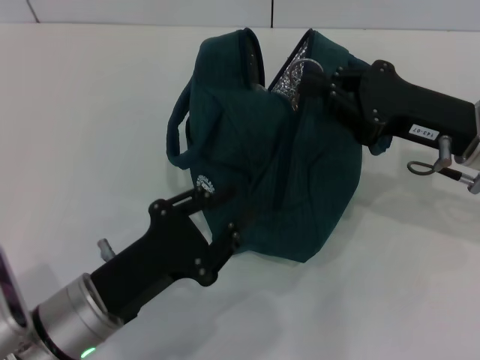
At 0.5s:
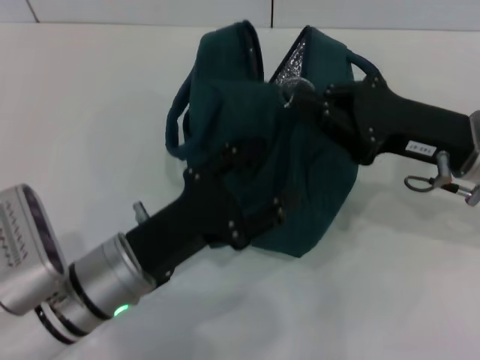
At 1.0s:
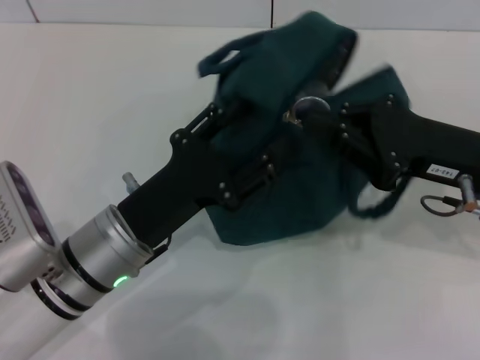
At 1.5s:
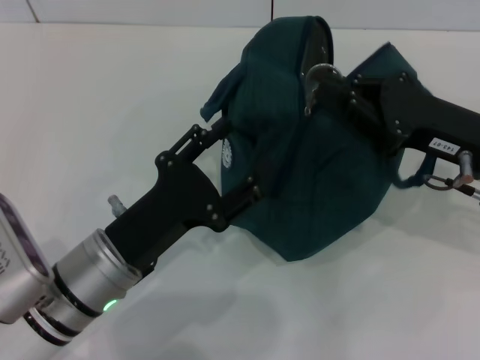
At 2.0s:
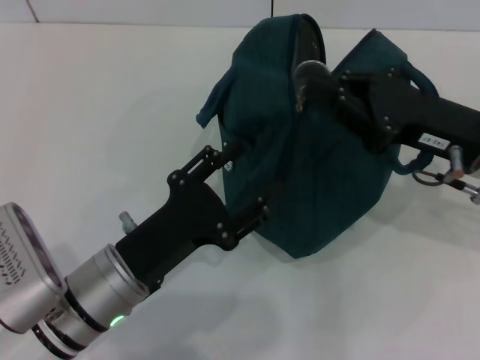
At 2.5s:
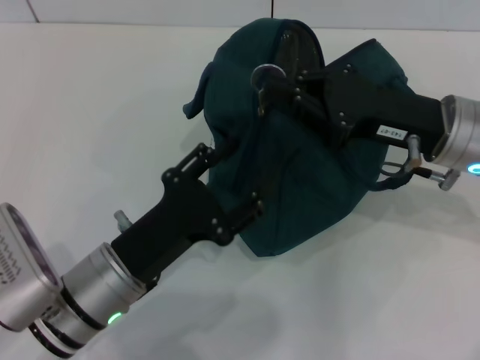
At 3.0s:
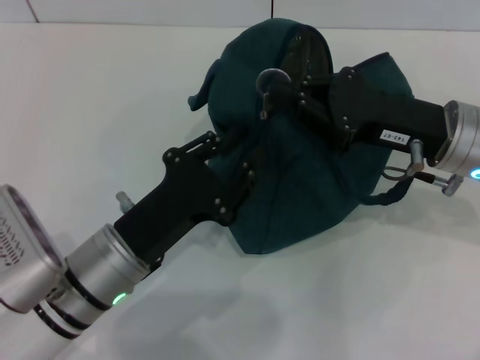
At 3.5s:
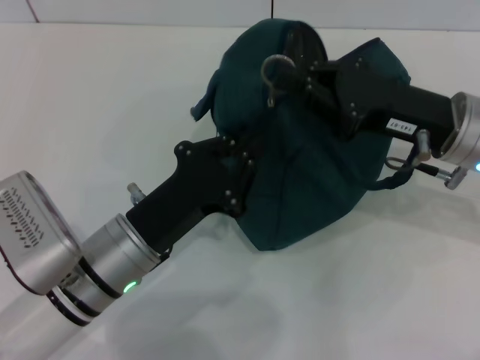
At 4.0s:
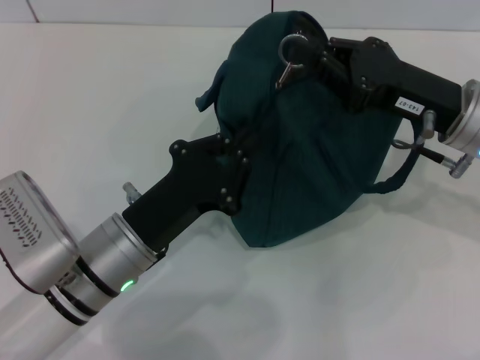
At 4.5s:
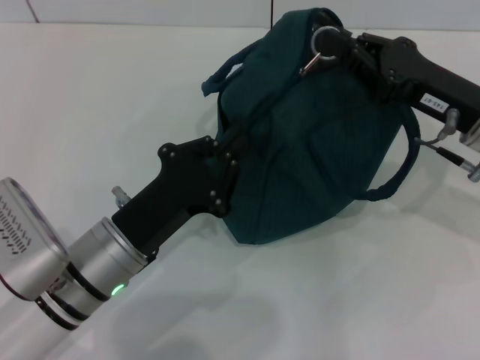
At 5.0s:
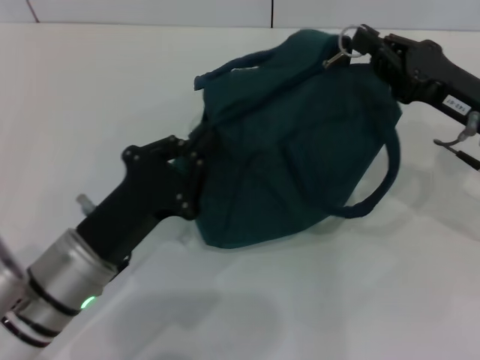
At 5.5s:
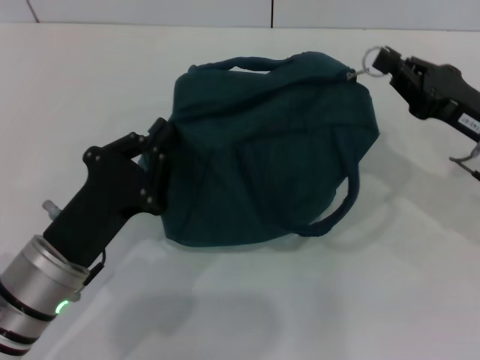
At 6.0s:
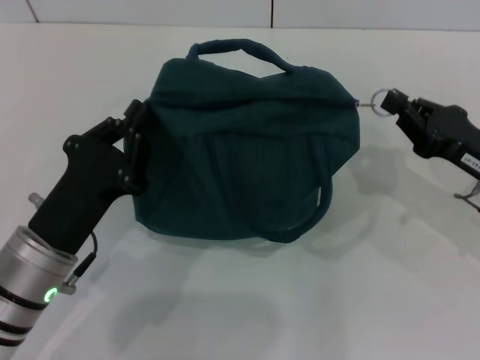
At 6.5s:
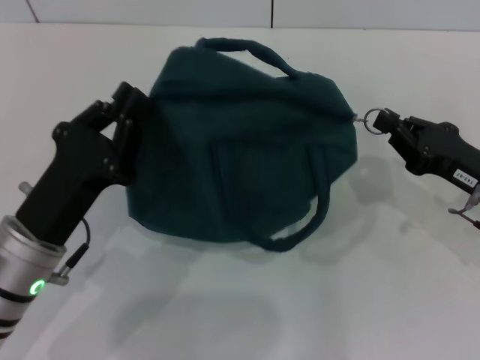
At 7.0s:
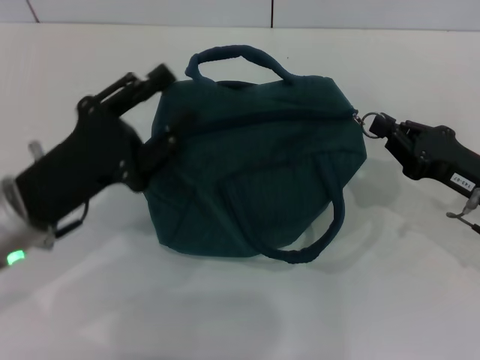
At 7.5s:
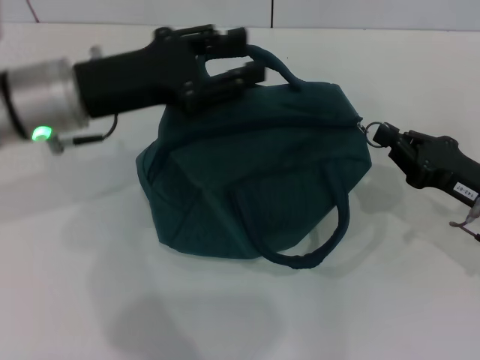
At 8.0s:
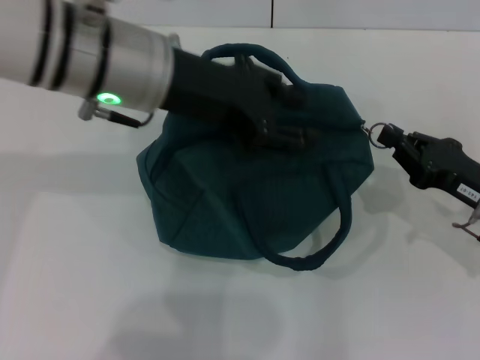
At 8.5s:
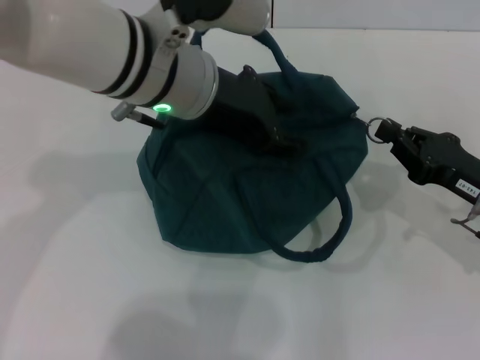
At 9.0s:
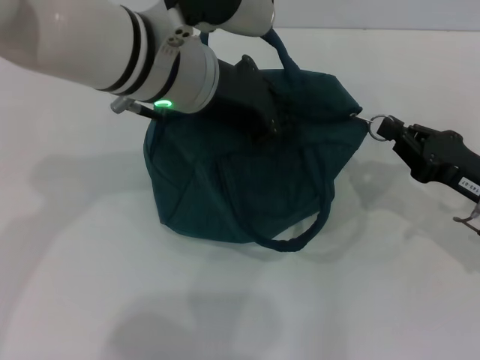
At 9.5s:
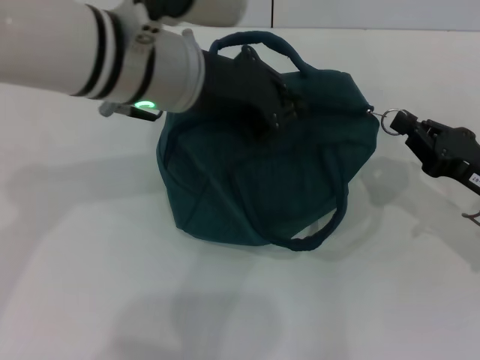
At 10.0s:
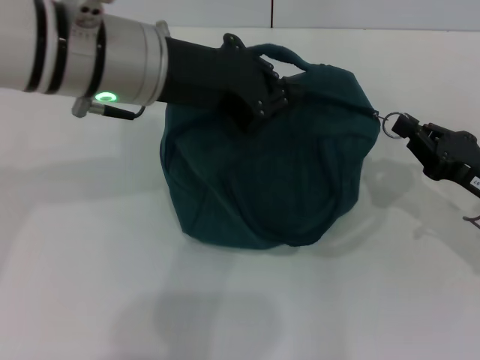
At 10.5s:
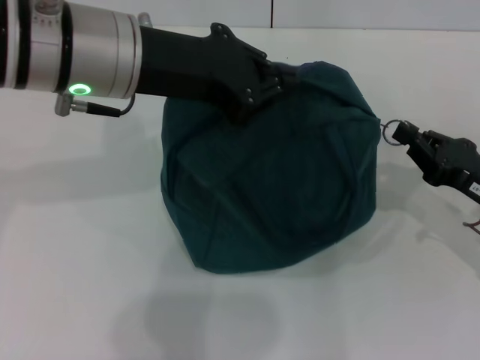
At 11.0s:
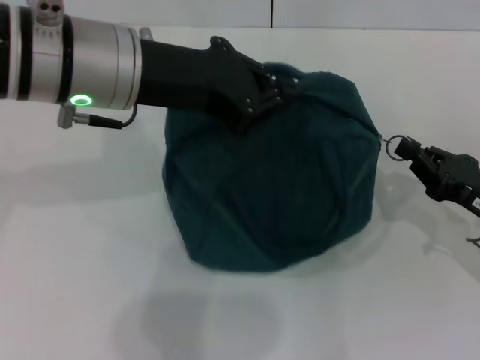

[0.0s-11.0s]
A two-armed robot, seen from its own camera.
0.0s to 2.0s: The left gripper opens up.
2.0s to 3.5s: The left gripper closes its fingers.
3.5s to 5.5s: The left gripper moves to the left, some 5 cm; the right gripper is displaced to the right by roughly 5 cm.
5.5s to 7.5s: The left gripper shifts some 20 cm upward and forward, and opens its fingers, while the right gripper moves approximately 5 cm.
7.5s to 9.0s: The left gripper moves to the right, approximately 10 cm.
9.0s to 11.0s: The left gripper shifts roughly 5 cm to the left.

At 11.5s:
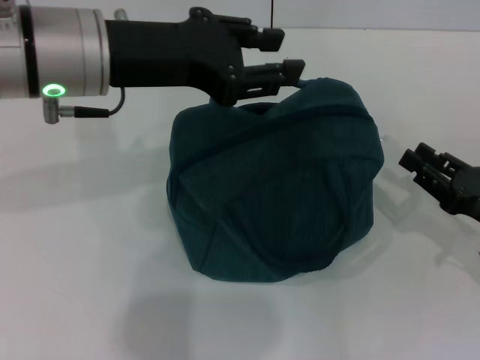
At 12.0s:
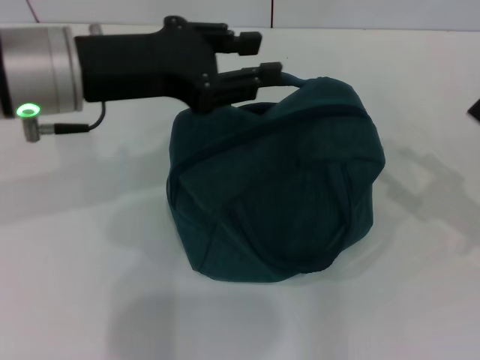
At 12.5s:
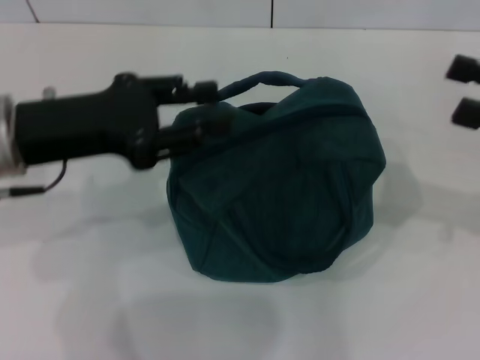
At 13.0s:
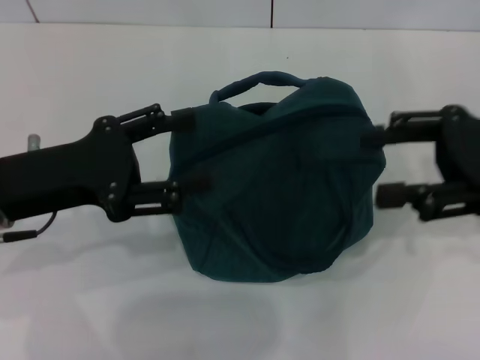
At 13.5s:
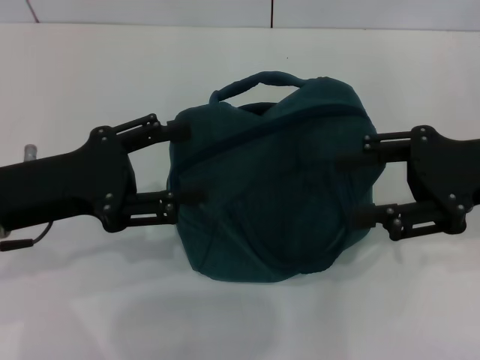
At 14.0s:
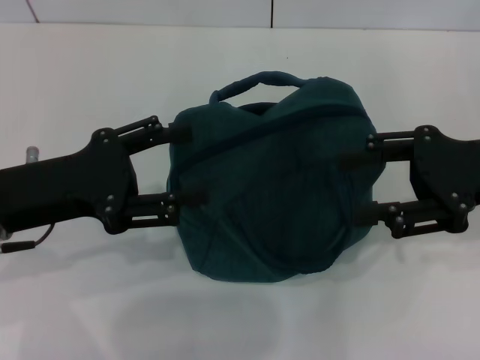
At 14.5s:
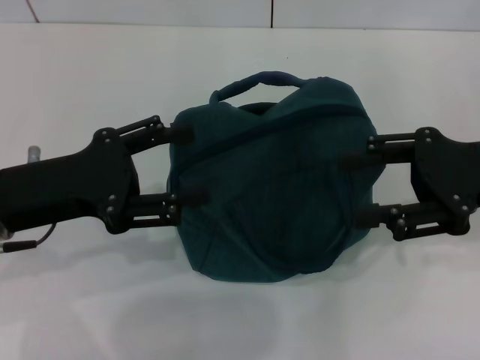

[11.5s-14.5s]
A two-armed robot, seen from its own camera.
11.5s to 13.0s: The right gripper heads upward, covering about 15 cm, and opens its fingers, while the left gripper is displaced downward, to the left and backward by approximately 15 cm, and opens.
13.0s to 14.5s: The grippers make only small movements.

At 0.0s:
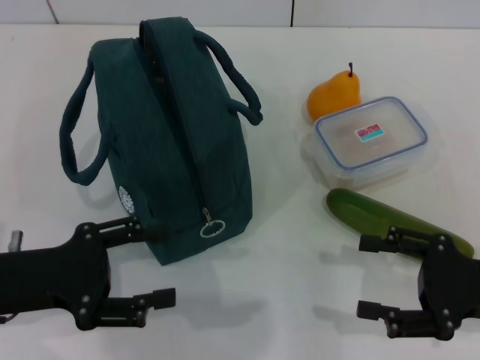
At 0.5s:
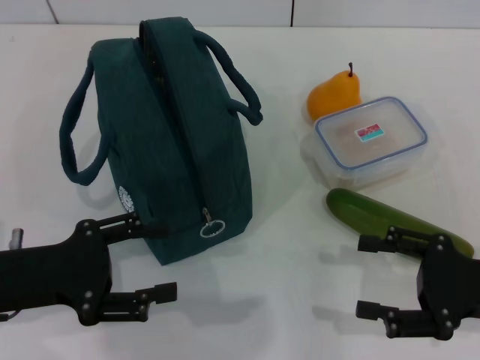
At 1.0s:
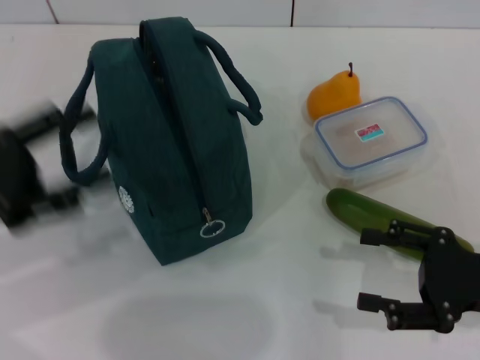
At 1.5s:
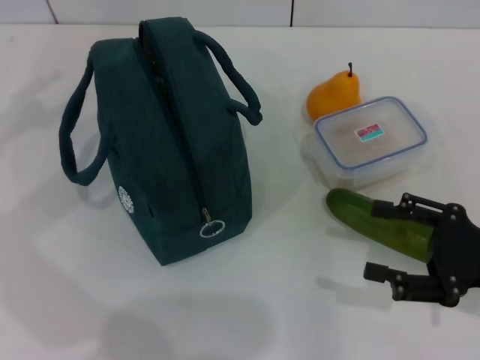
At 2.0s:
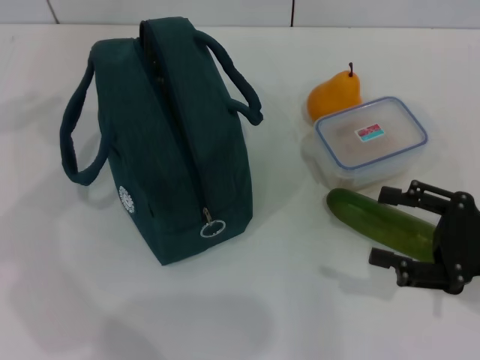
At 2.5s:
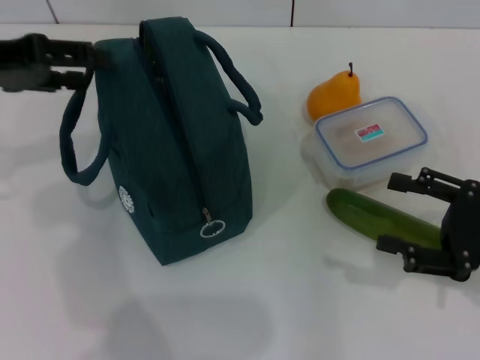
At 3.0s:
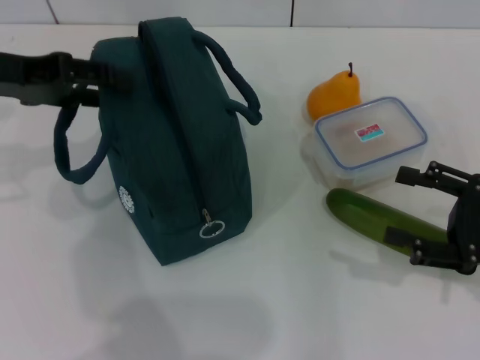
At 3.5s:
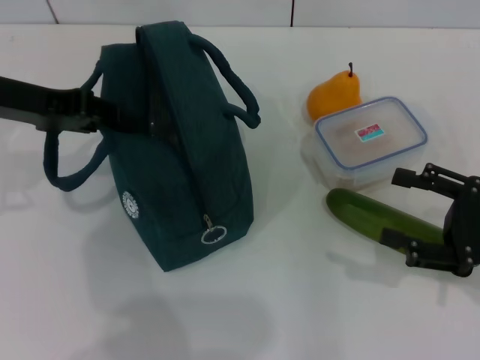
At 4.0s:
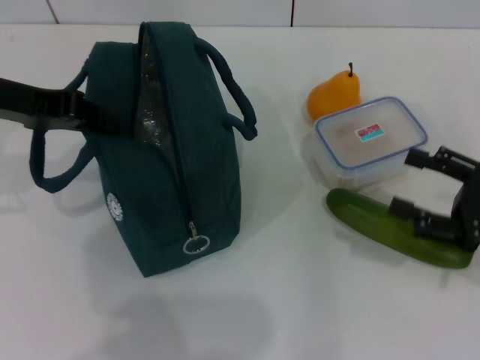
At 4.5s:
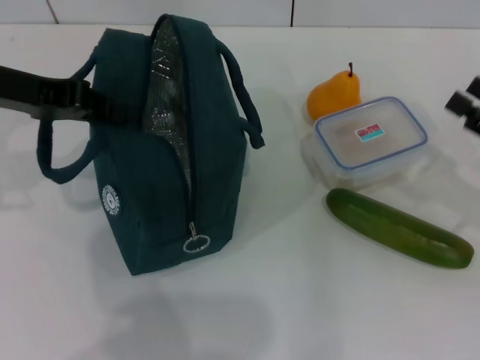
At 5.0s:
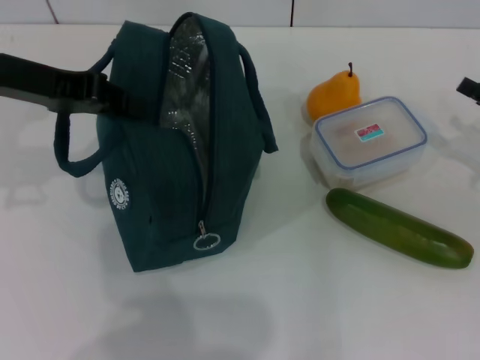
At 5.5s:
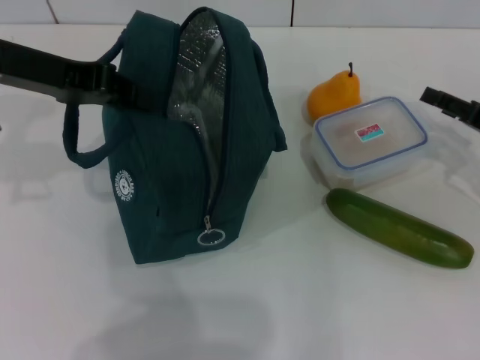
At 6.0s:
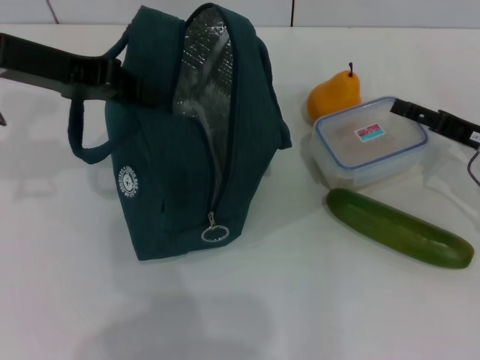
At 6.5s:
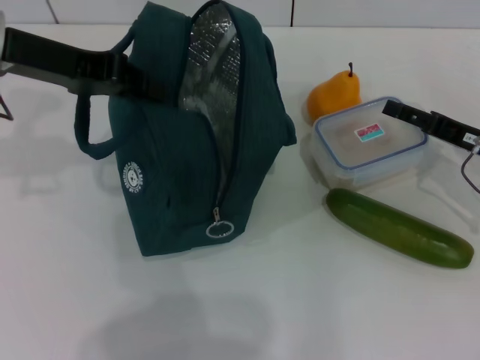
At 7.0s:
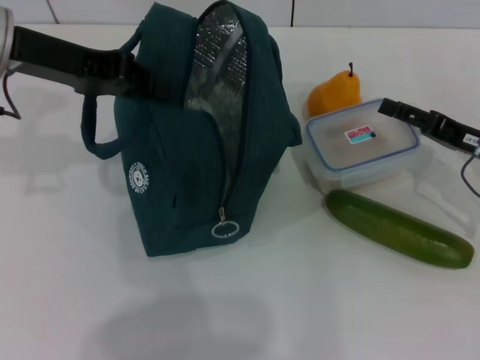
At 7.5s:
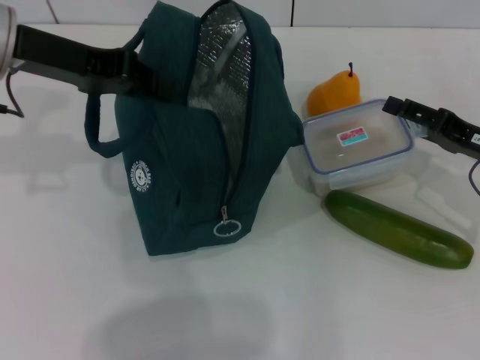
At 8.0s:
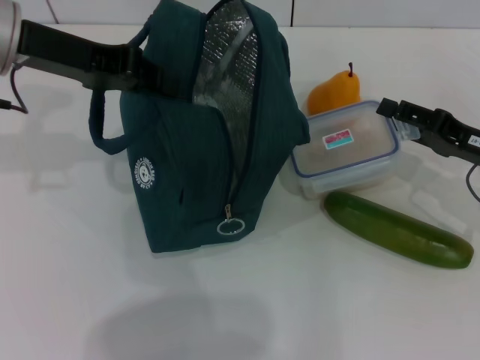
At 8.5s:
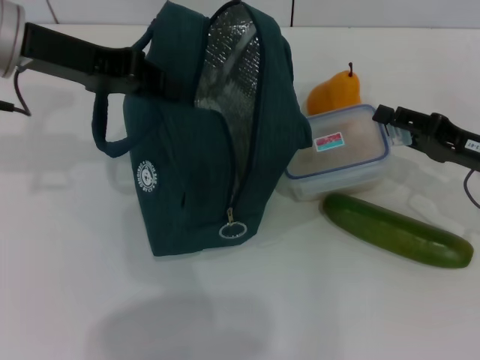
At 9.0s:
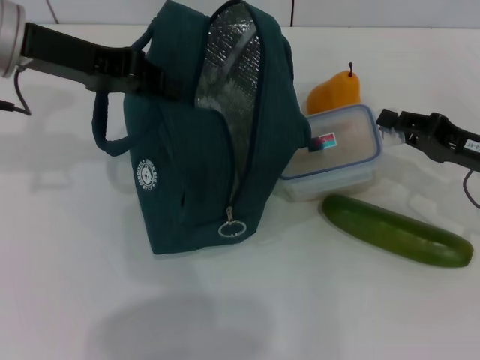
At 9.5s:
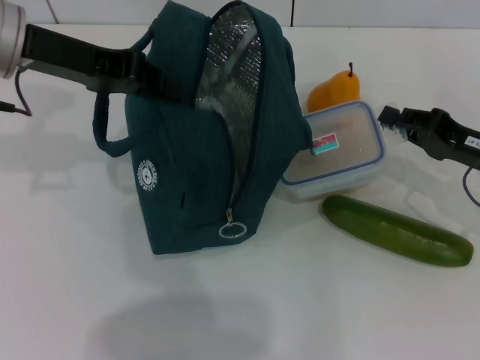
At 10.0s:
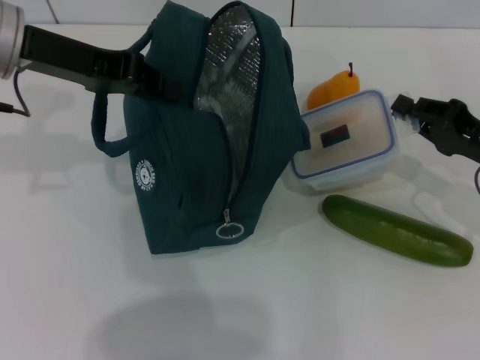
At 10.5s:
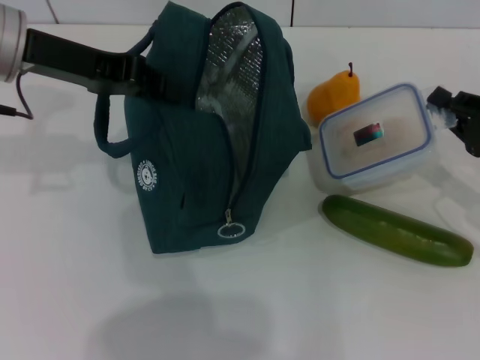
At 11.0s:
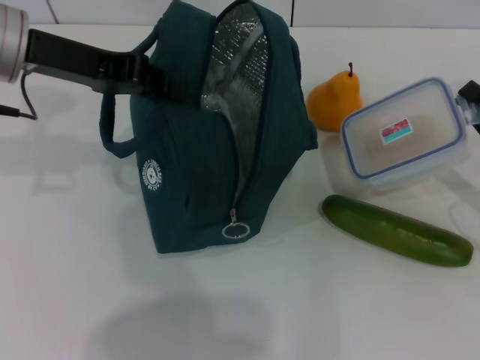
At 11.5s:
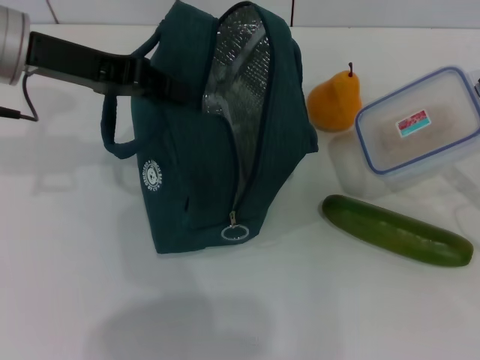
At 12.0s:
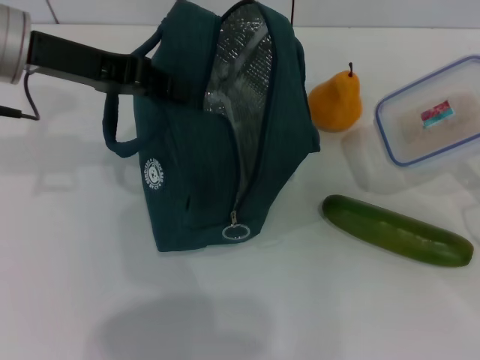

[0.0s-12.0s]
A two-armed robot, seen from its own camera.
Step, 0.0s to 4.5s: Hold the lunch bag with your left hand.
Step, 5.0s to 9.0s: Pick up the lunch box with your right hand.
0.0s to 2.0s: The left gripper shifts roughly 20 cm upward, forward and to the left.
2.0s to 4.0s: The left gripper shifts about 10 cm to the right, and closes up.
4.0s to 6.0s: The right gripper travels forward by about 10 cm.
6.0s to 8.0s: The grippers stay close to where they were, moving slightly.
8.0s to 10.0s: The right gripper closes up.
10.0s to 12.0s: The right gripper moves backward, about 5 cm.
